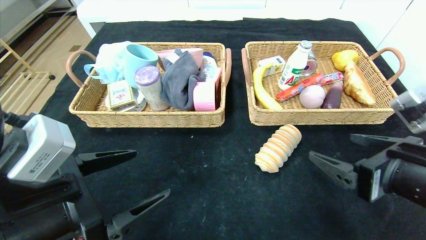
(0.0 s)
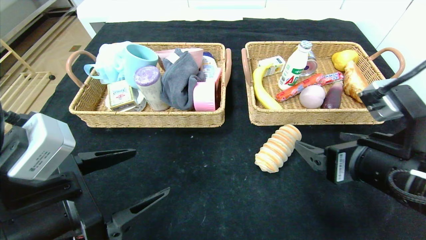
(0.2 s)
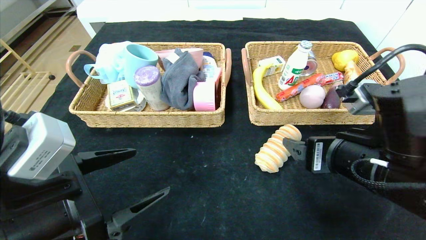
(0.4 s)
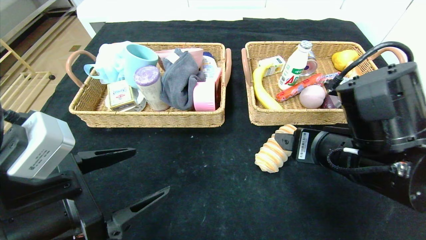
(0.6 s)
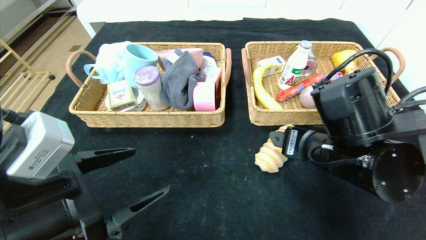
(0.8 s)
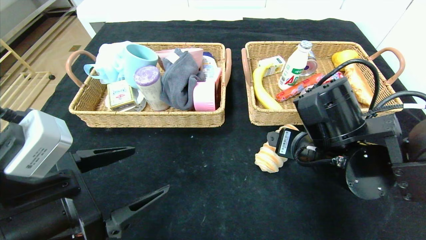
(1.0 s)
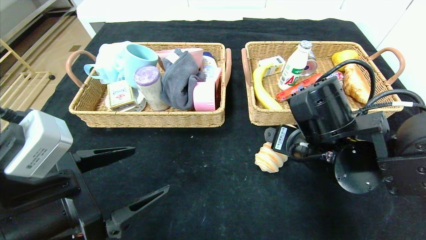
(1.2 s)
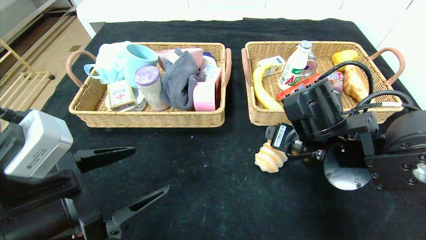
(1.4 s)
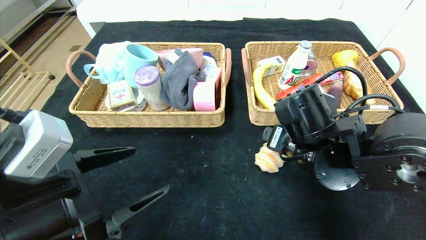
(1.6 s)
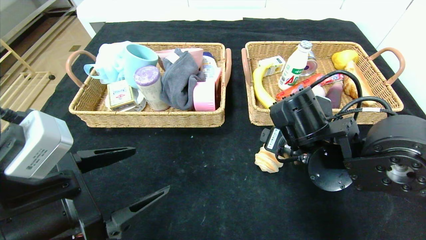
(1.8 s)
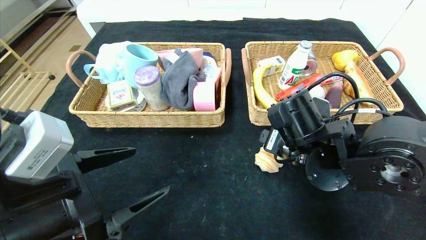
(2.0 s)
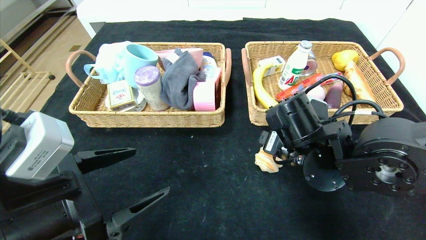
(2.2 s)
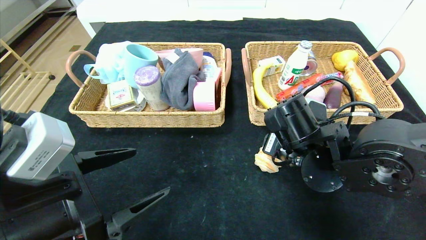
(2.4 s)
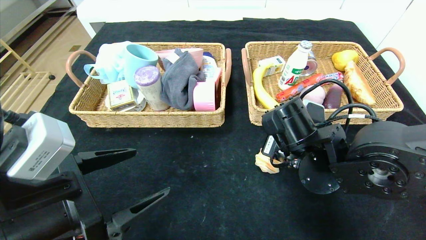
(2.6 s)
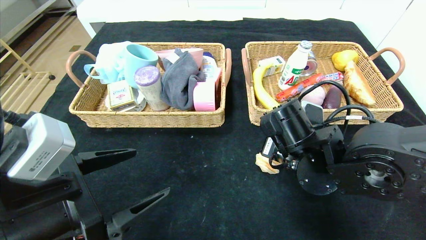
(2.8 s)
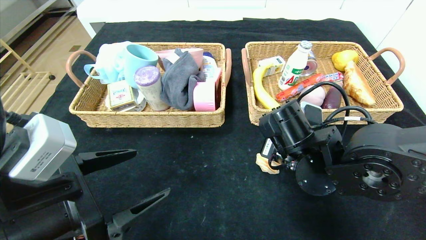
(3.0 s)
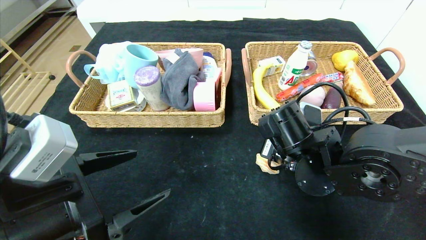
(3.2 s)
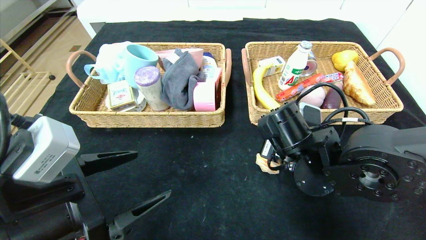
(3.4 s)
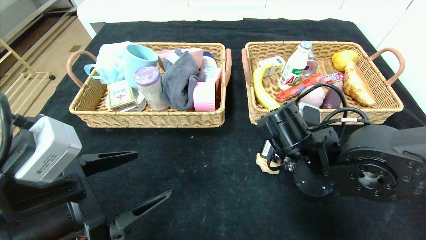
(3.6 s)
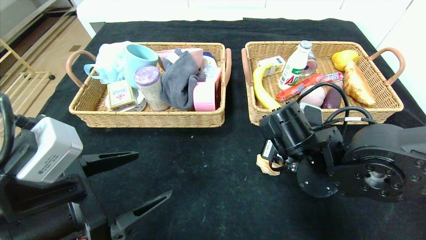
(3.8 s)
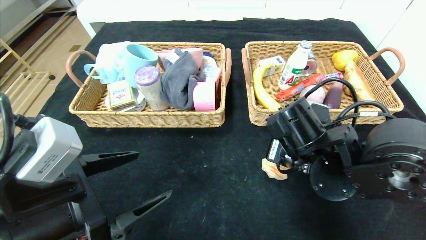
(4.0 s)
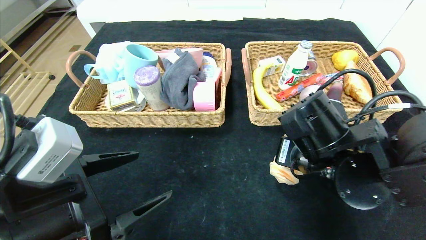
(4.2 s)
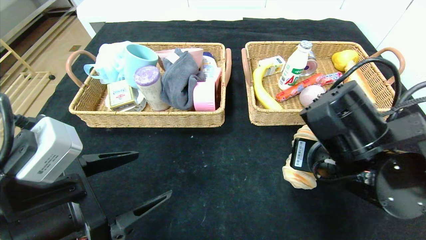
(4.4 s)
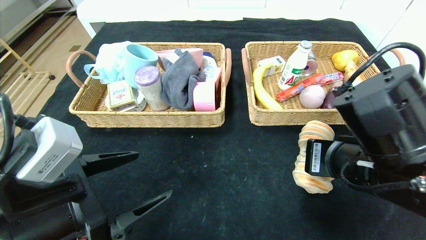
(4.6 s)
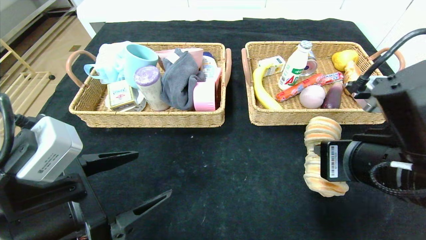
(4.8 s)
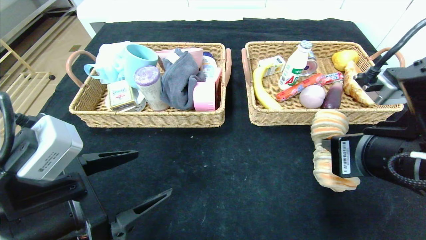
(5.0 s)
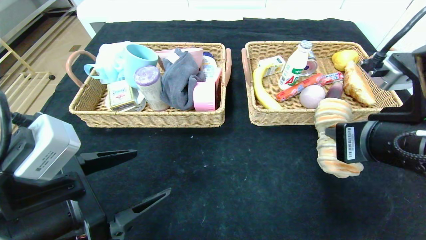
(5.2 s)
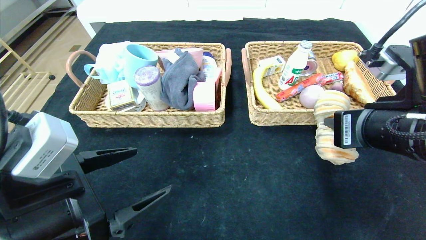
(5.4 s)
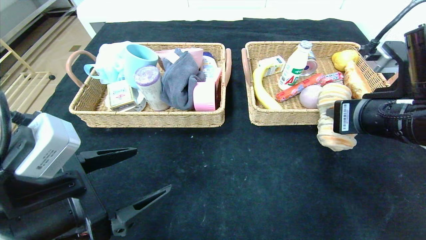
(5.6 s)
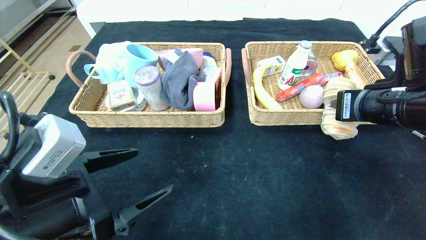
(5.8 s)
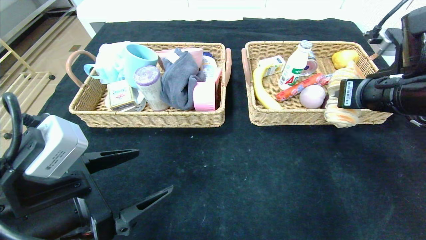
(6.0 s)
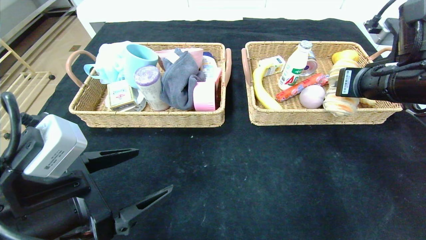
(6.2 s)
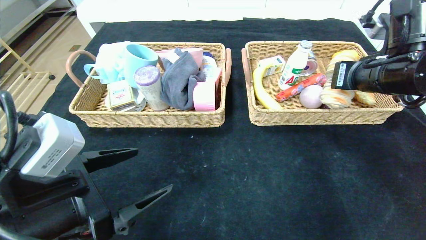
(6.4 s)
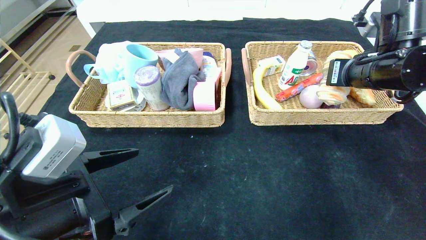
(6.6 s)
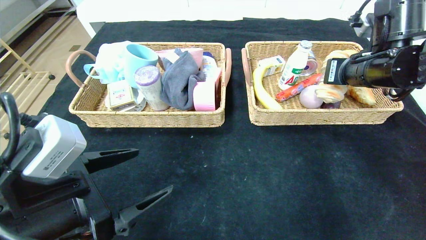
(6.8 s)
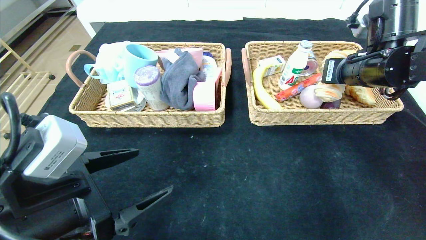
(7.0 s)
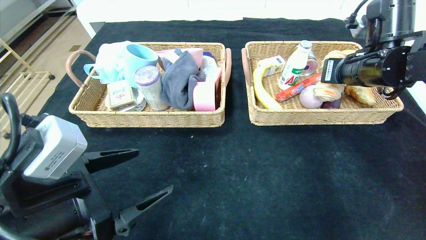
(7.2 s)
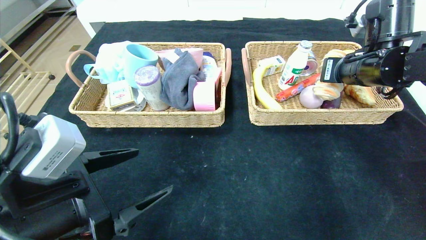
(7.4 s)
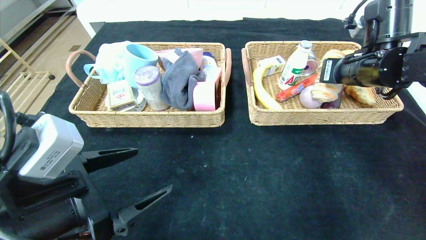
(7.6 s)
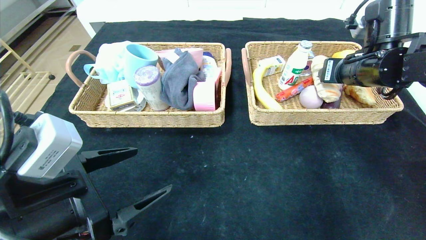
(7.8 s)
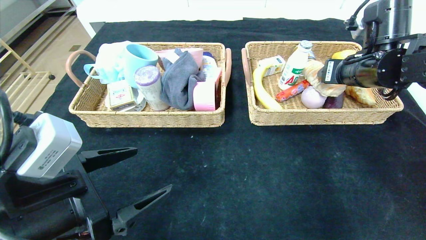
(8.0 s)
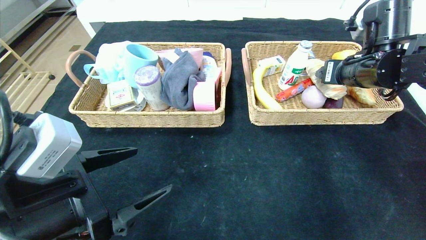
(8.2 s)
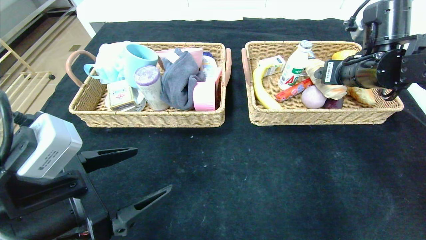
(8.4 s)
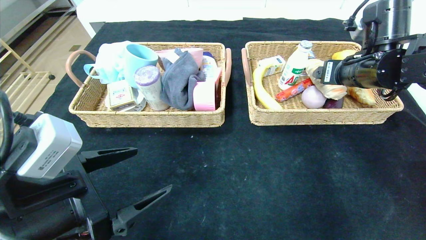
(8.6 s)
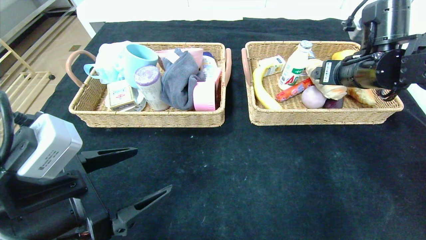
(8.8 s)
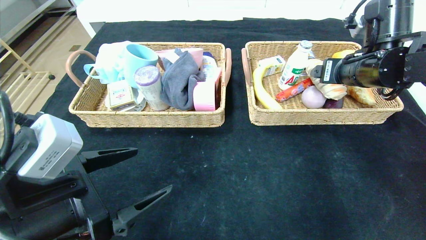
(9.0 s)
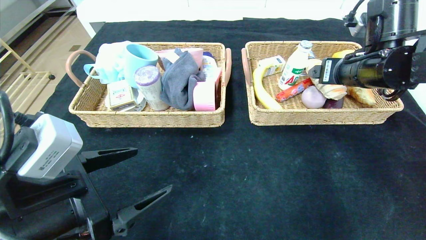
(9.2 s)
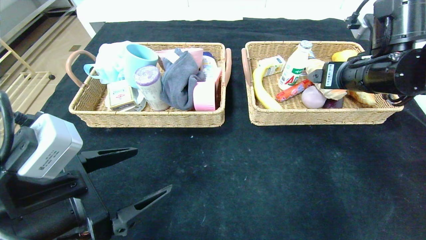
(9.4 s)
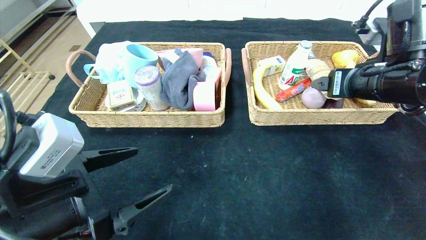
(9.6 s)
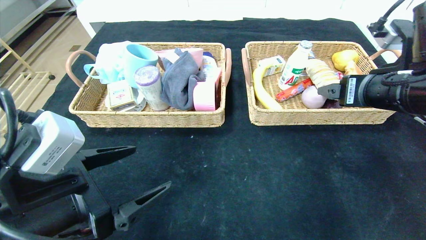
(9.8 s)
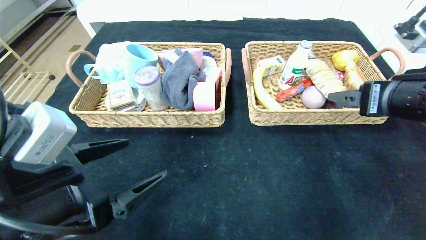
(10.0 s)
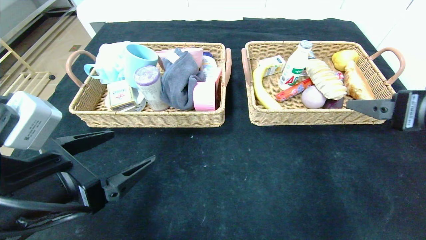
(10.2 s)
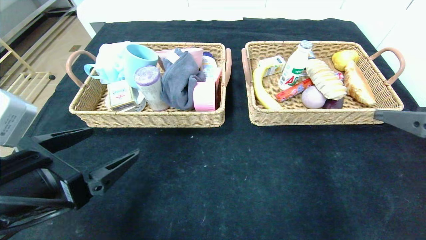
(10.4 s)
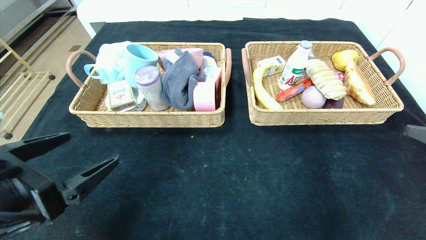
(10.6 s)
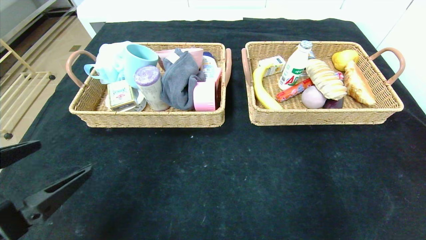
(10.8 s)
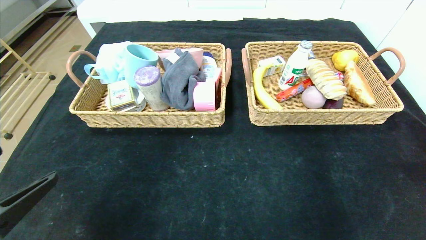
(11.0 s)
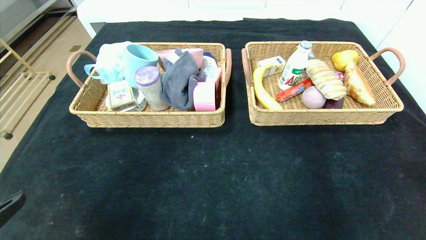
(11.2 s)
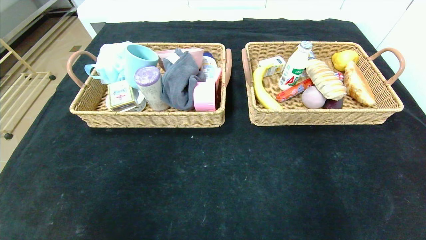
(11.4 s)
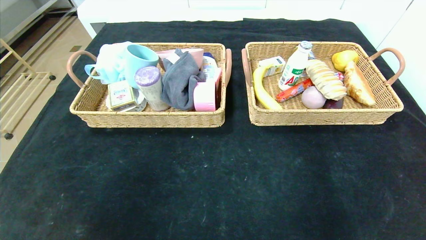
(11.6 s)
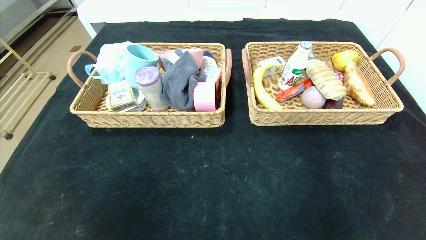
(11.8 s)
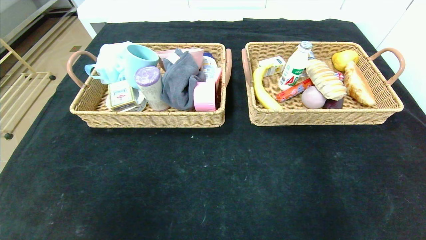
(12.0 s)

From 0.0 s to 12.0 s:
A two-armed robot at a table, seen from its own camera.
Step, from 0.0 s to 10.4 s: Pick up the long bread and put it in the right basket.
From 0.0 s to 1.6 s: The right gripper heads to the left and forward, covering some 15 cm.
From 1.6 s to 3.0 s: The right gripper closes up.
From 3.0 s to 4.4 s: The right gripper is displaced backward by approximately 5 cm.
From 4.4 s to 6.0 s: The right gripper travels to the right, forward and upward by some 15 cm.
From 6.0 s to 7.6 s: The right gripper is displaced forward by about 10 cm.
From 7.6 s to 9.0 s: The right gripper opens up.
From 9.0 s to 10.4 s: The right gripper is displaced backward by roughly 20 cm.
From 10.4 s to 12.0 s: The left gripper is displaced backward by approximately 20 cm, while the right gripper moves backward and downward, about 25 cm.

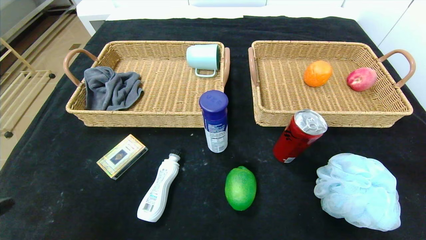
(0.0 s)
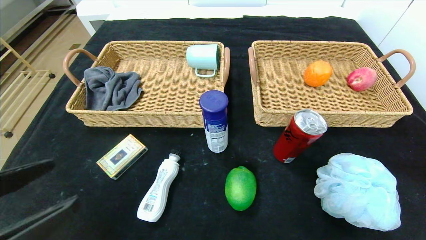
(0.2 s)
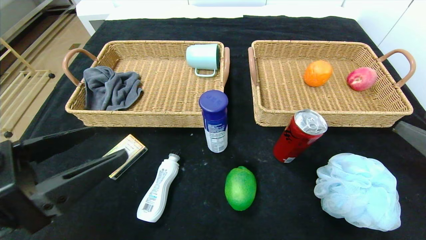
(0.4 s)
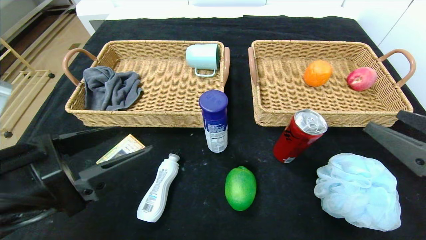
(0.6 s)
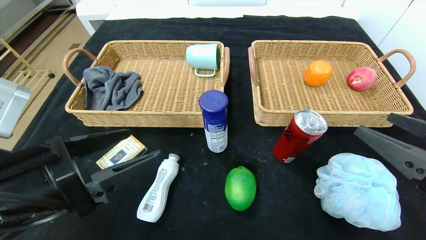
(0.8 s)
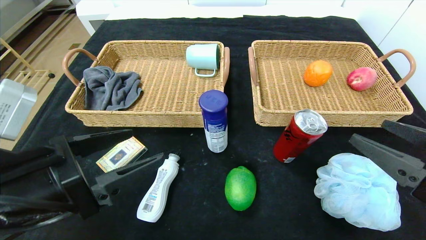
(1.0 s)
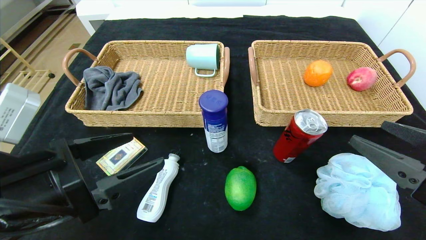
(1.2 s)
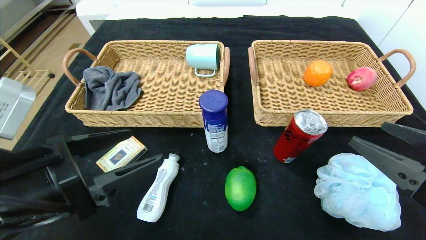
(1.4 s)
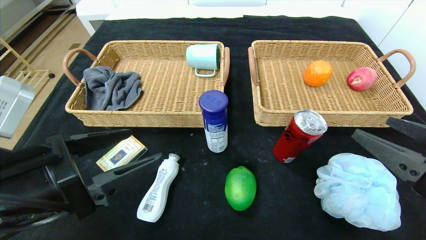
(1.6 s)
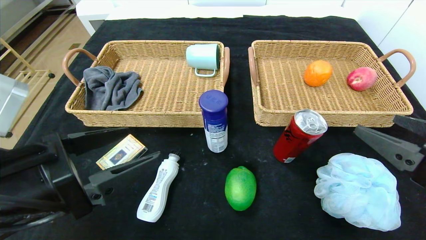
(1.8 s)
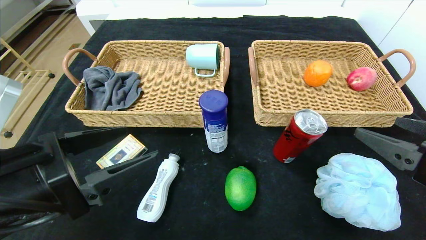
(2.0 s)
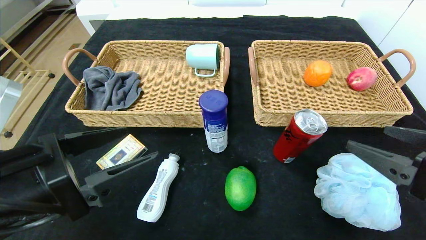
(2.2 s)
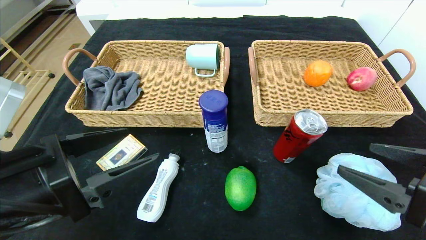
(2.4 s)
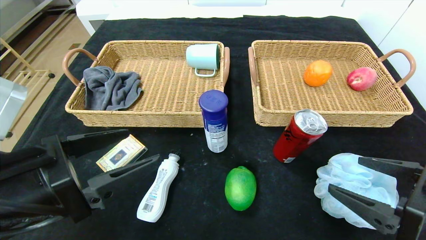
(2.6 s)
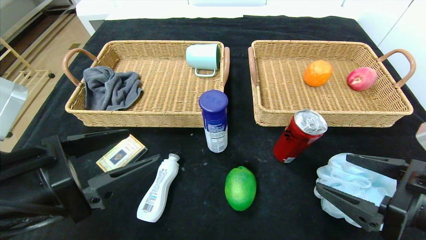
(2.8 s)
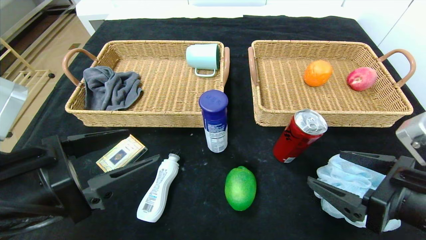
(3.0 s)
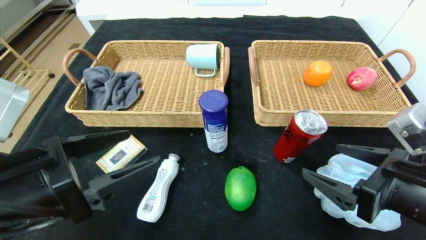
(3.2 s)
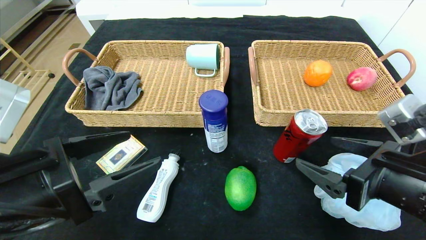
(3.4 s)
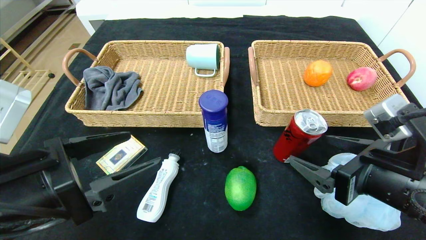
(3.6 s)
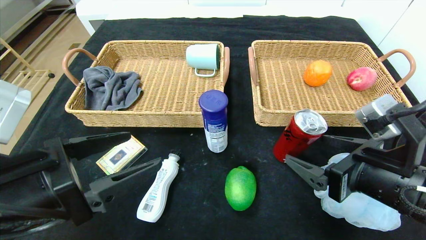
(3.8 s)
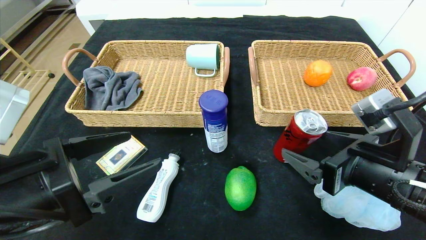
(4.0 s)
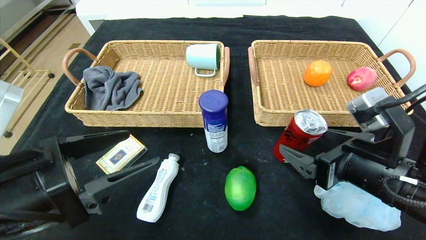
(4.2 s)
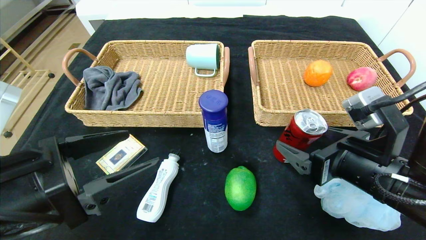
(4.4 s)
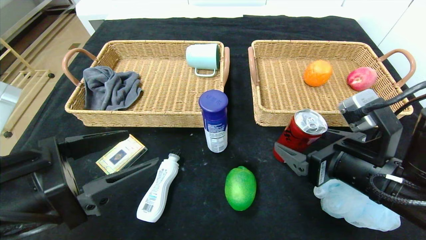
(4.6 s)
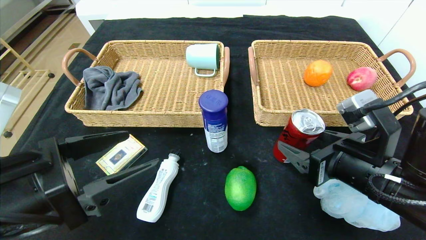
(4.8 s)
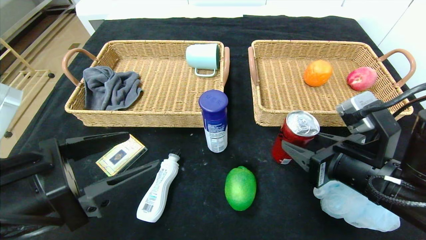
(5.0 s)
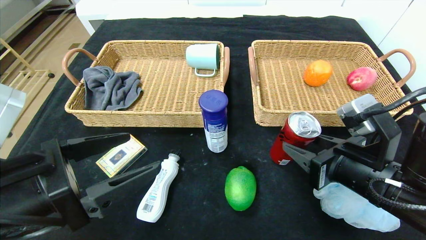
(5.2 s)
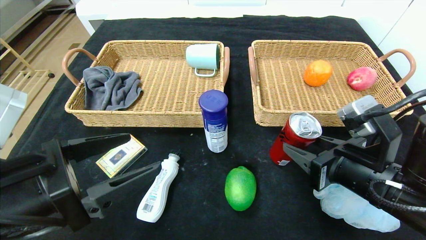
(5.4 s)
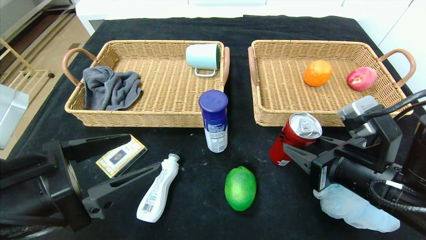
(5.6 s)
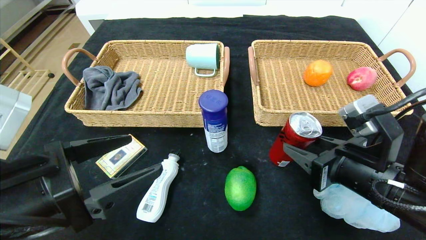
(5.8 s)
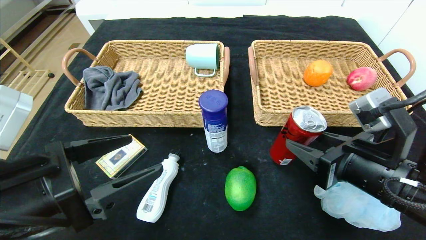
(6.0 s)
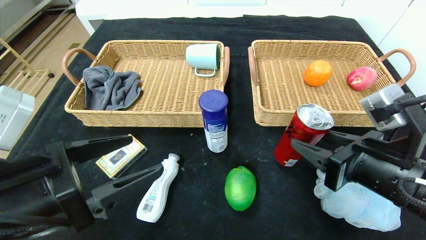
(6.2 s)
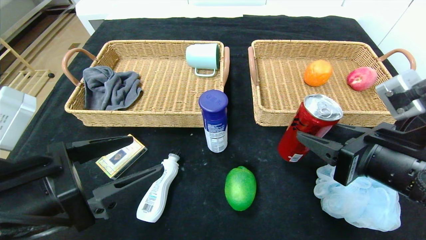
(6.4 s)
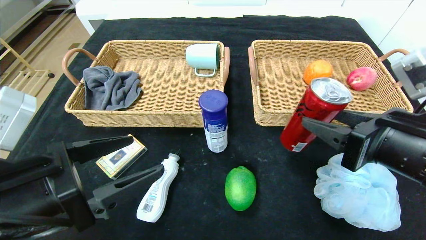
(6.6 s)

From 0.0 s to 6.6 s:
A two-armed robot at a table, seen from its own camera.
From 0.0 s to 1.6 s: The left gripper shifts some 15 cm forward and to the right; the right gripper goes approximately 10 cm forward and to the left.
From 1.6 s to 3.2 s: The right gripper ends up about 5 cm from where it was.
From 3.2 s to 5.0 s: The right gripper ends up approximately 5 cm from where it was, and closes up.
From 5.0 s to 6.6 s: The right gripper travels upward by approximately 5 cm.
